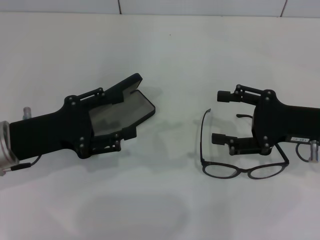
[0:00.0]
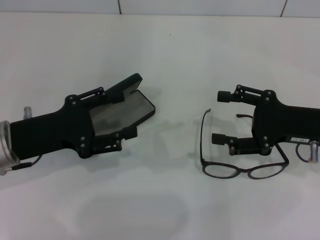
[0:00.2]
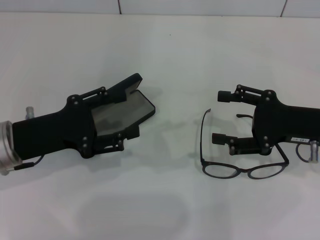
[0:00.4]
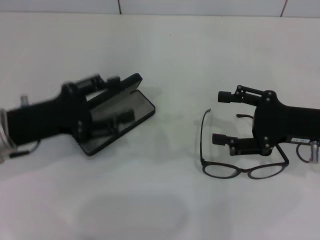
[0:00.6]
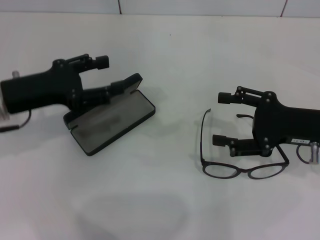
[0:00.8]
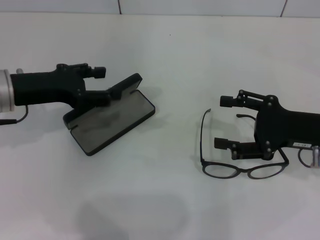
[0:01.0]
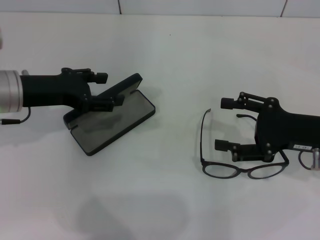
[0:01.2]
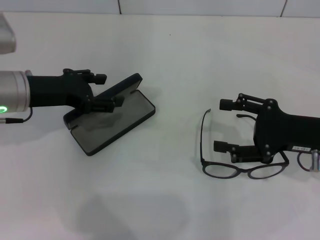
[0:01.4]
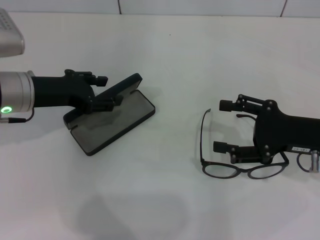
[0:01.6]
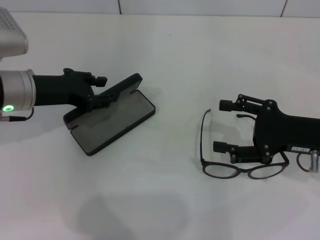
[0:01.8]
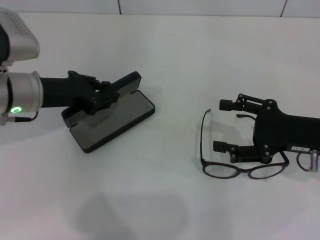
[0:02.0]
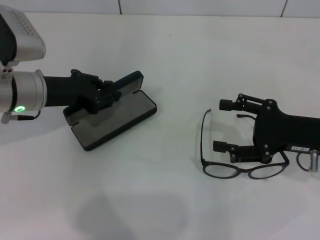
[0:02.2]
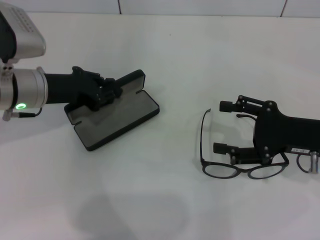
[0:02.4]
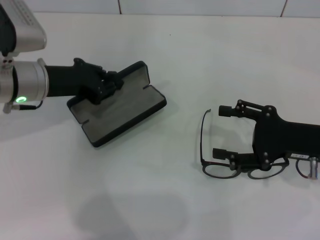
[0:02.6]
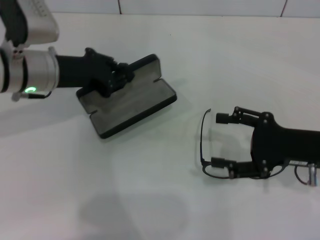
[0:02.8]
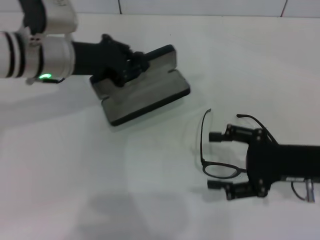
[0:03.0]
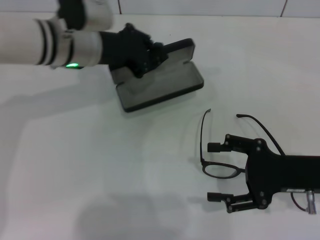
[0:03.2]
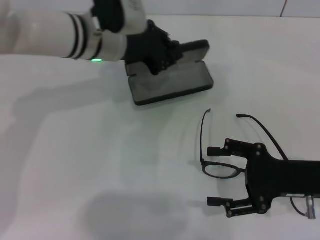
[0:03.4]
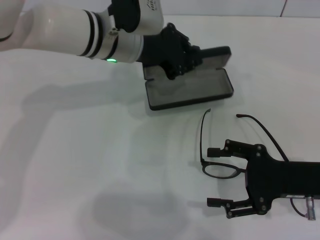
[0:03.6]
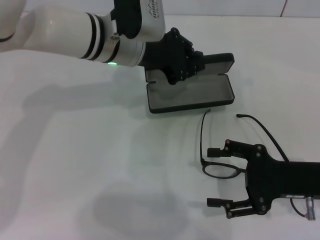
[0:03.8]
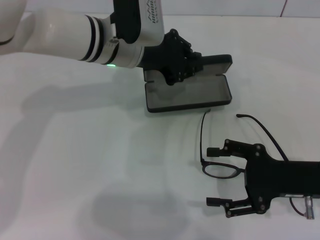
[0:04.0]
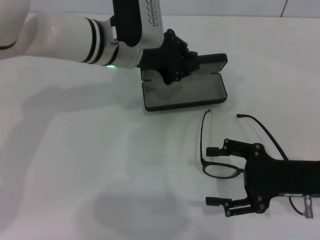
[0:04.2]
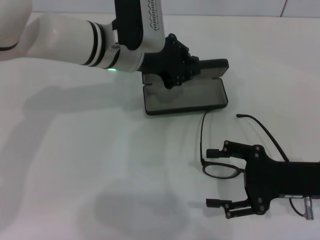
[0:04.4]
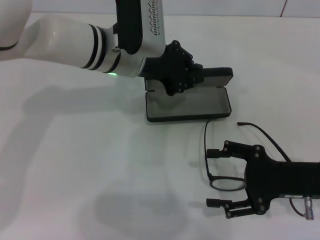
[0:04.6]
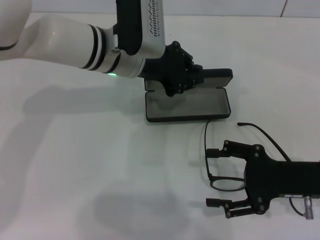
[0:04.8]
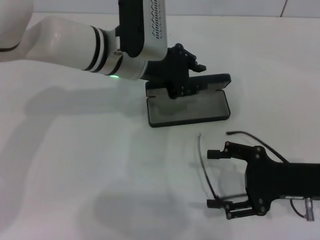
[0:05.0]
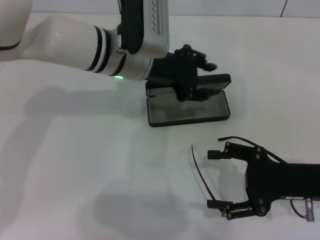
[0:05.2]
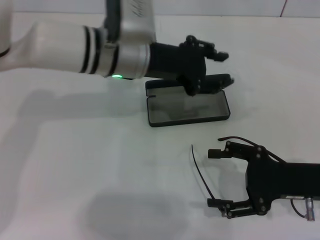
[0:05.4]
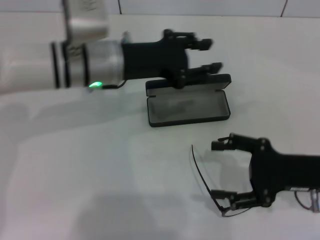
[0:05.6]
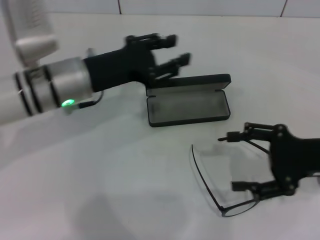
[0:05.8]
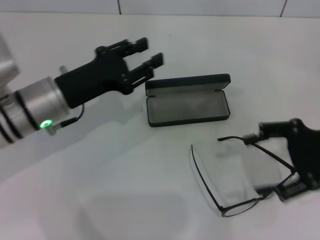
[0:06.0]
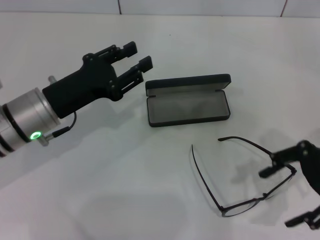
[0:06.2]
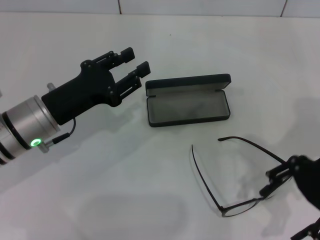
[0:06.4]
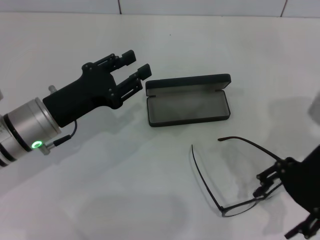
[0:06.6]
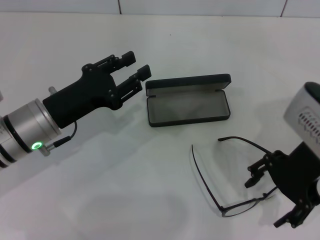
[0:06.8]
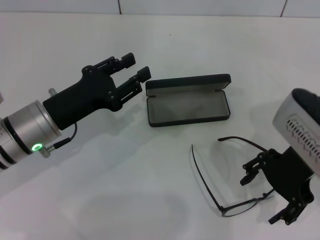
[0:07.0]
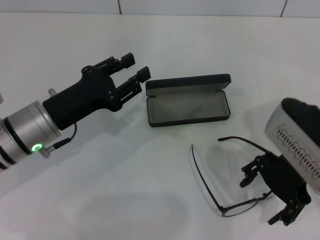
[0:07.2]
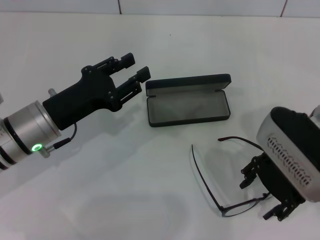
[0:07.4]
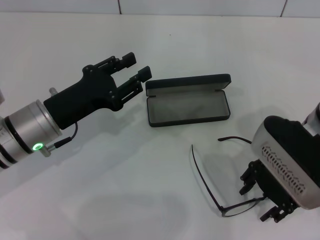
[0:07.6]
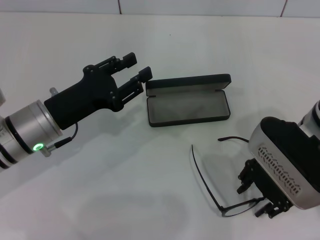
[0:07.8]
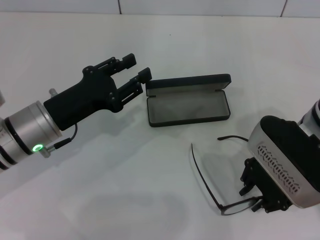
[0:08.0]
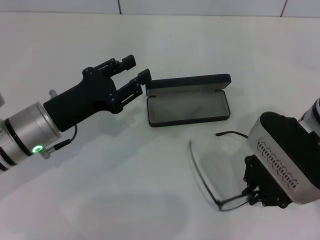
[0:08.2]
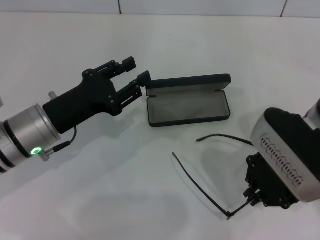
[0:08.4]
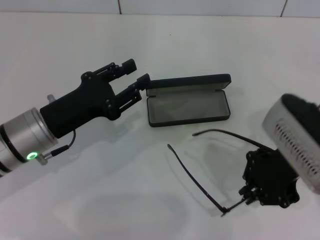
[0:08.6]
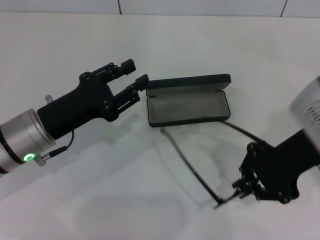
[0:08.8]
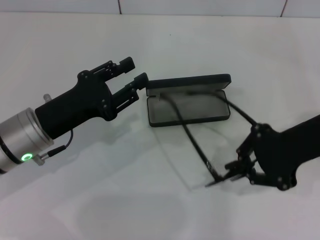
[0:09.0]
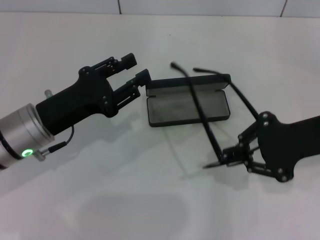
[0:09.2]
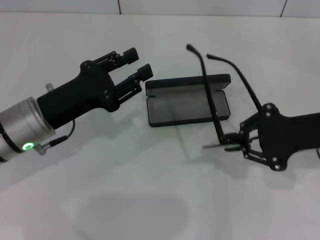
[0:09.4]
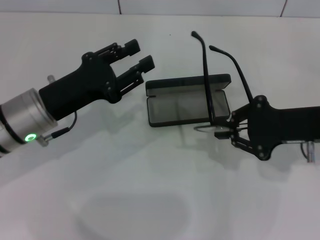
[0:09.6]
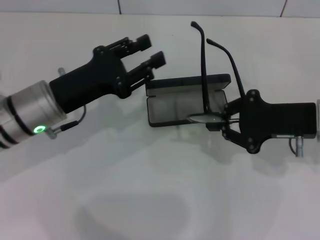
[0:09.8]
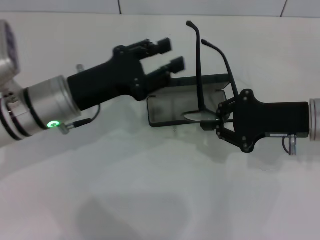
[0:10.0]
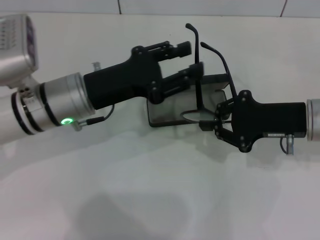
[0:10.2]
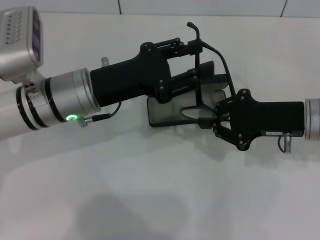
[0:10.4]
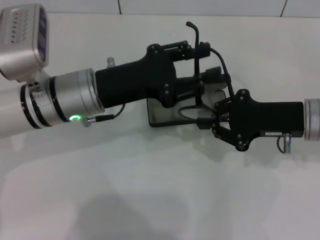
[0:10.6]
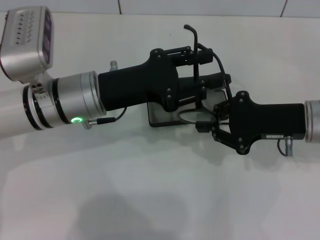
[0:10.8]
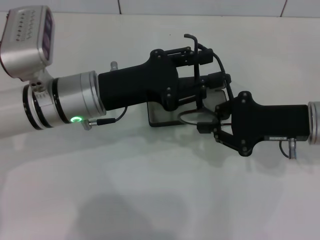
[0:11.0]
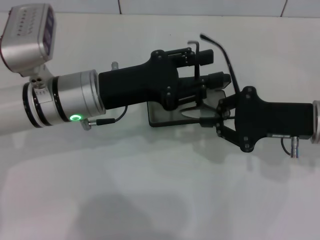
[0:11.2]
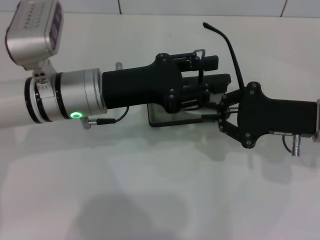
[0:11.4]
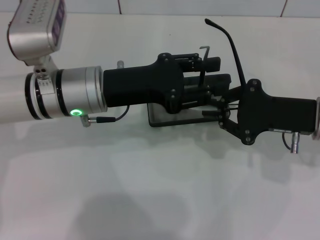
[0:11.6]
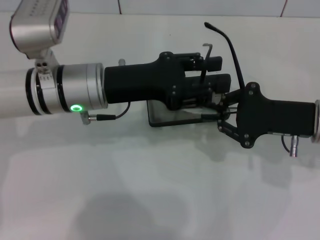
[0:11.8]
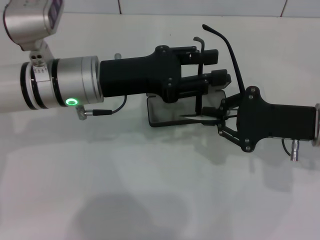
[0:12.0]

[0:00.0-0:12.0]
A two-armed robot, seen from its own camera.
Step, 0:00.0 to 0:01.8: Grab the glasses case with your left hand.
Step, 0:02.0 to 0:04.8: Place the glasses case in the center of the table with your left hand.
Step, 0:05.0 to 0:07.8: Grab the eyeglass frame with your right hand.
0:00.0 to 0:01.6: The left gripper shifts about 10 cm forward.
0:01.6 to 0:03.0: The left gripper travels to the right by about 5 cm, and closes up.
0:03.0 to 0:04.4: The left gripper travels to the right by approximately 10 cm.
0:04.4 to 0:06.0: The left gripper moves to the left and backward, approximately 15 cm, and opens its fingers; the right gripper goes about 10 cm upward.
0:06.0 to 0:07.6: The right gripper travels to the left by about 10 cm.
0:07.6 to 0:09.0: The right gripper ends up about 5 cm from where it was, and closes up.
0:09.0 to 0:10.4: The left gripper shifts approximately 5 cm to the right; the right gripper moves downward, some 10 cm.
0:10.4 to 0:12.0: The grippers move only a little.

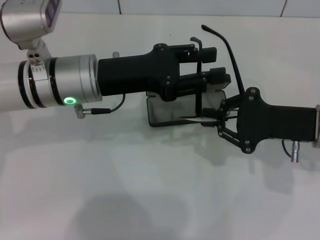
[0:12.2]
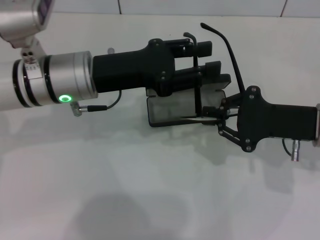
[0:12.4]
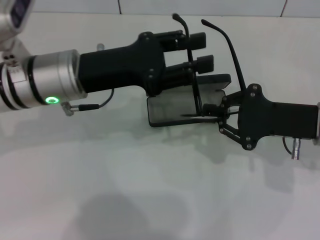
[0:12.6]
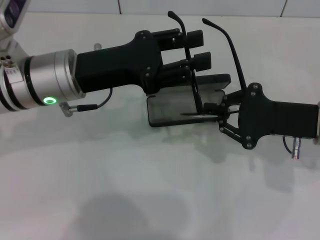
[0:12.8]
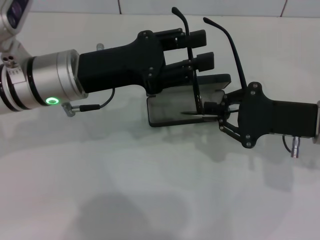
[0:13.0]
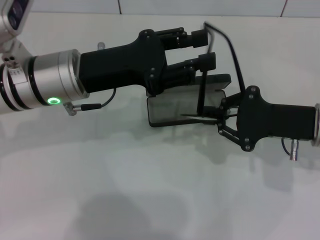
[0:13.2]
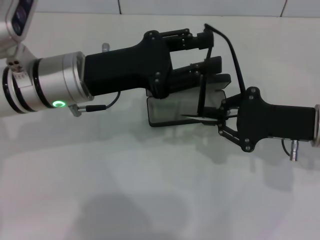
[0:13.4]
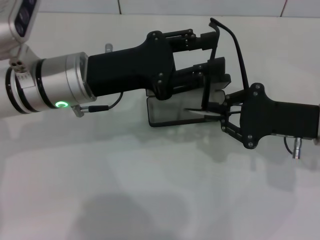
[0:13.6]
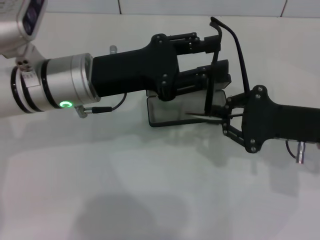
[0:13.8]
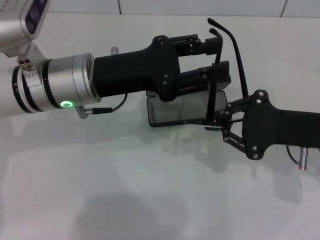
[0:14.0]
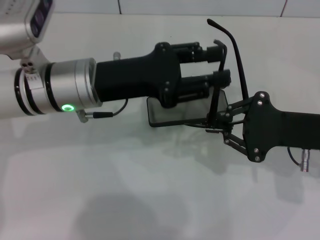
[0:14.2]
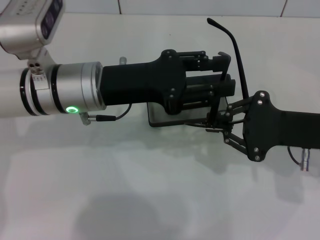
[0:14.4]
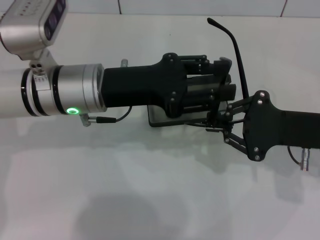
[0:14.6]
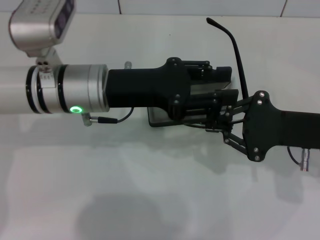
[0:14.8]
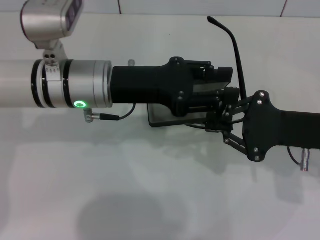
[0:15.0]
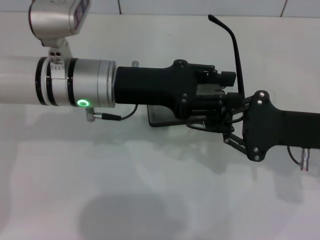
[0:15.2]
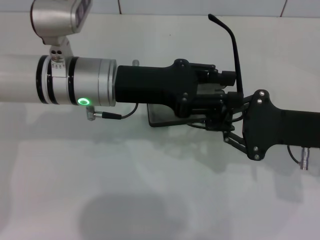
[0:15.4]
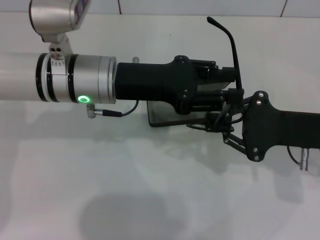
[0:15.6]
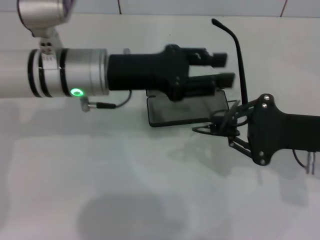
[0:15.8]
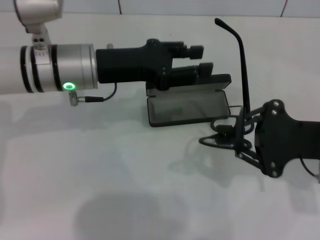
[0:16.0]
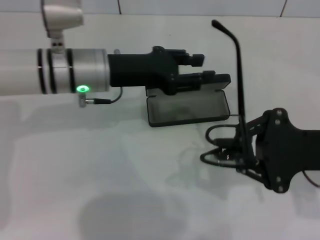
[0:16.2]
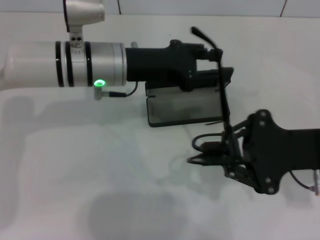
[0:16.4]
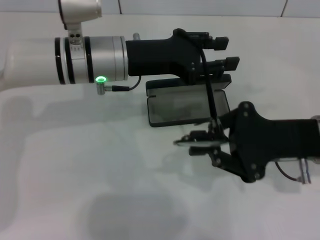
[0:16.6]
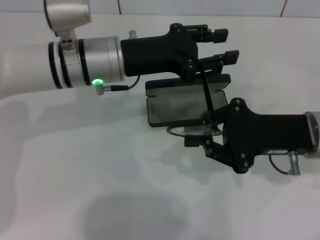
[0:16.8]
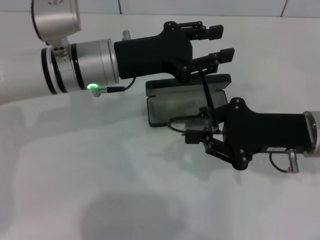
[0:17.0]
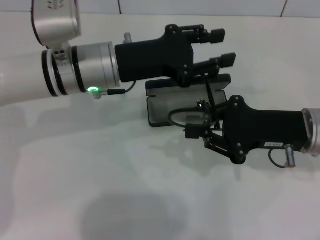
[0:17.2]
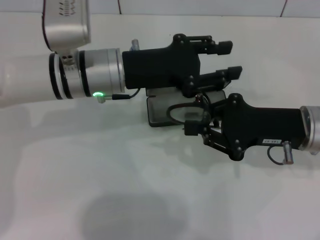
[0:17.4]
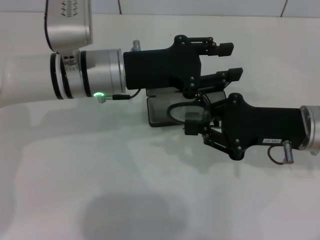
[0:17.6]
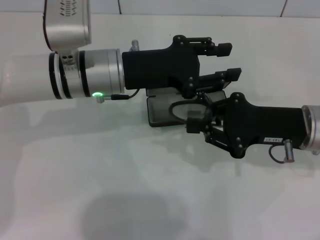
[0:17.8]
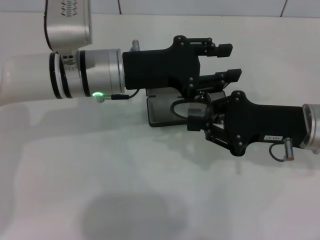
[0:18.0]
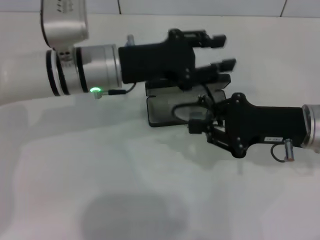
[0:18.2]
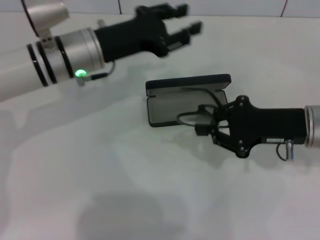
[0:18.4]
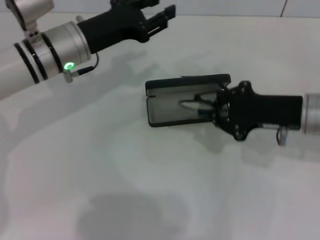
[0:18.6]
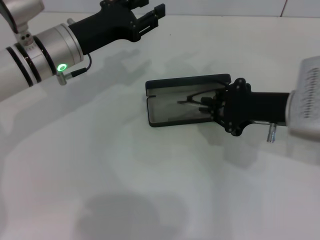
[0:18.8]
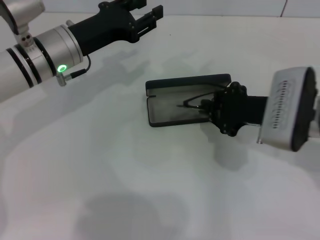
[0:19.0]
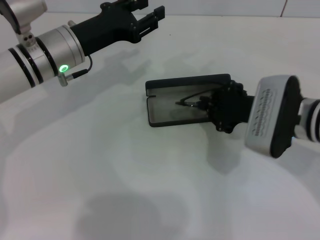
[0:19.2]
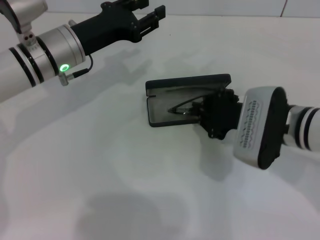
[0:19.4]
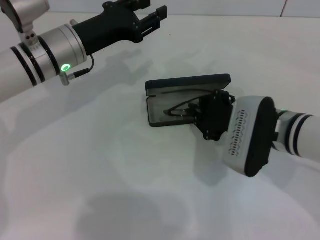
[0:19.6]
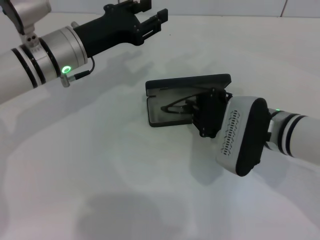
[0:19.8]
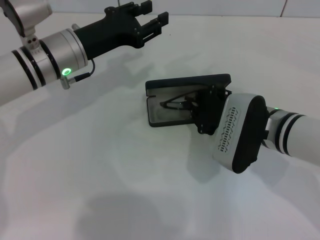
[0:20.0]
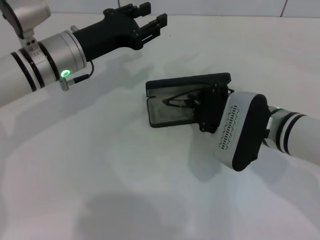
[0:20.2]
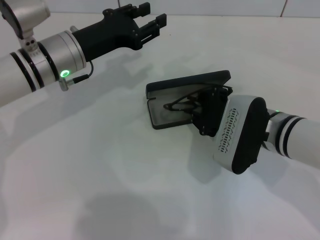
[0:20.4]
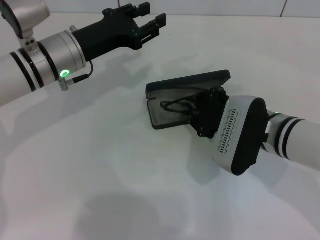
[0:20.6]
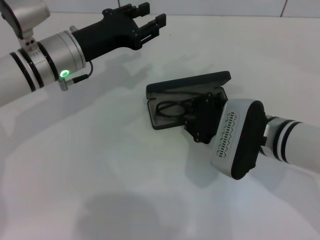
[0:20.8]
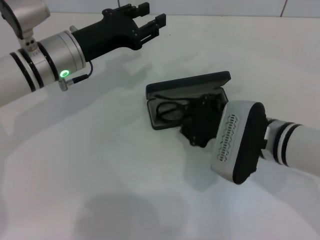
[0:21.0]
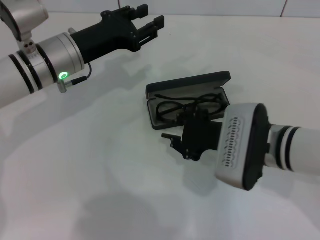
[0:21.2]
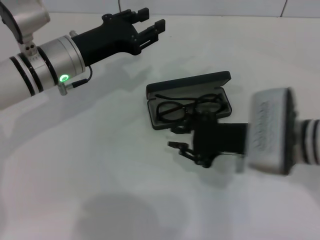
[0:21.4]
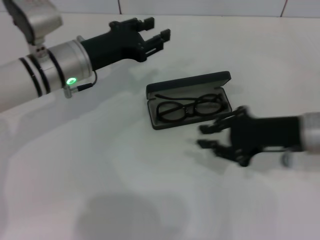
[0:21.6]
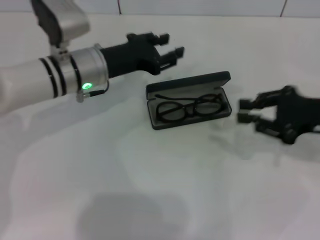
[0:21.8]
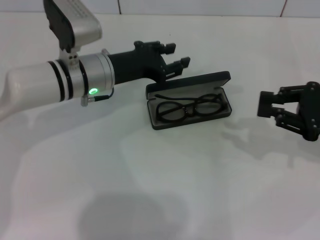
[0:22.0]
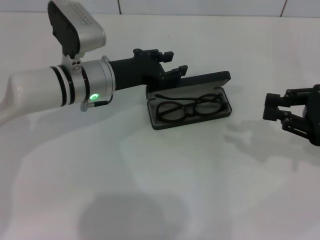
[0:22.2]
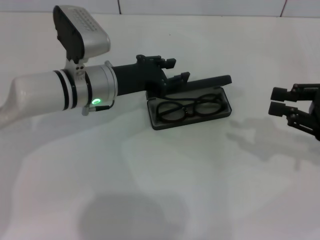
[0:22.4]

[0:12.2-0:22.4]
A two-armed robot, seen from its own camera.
Step, 0:12.2 to 0:17.8: Fold the frame with your left hand.
Step, 0:18.0 to 0:21.0: Put the glasses into the case with your right hand.
0:12.2 to 0:13.6: The grippers stay close to where they were, moving slightly.
0:18.0 to 0:19.4: Both grippers travel together to the left, roughly 5 cm.
0:19.4 to 0:21.0: The grippers move only a little.
0:21.0 to 0:22.4: The right gripper travels to the right by some 20 cm, while the left gripper shifts by about 5 cm.
